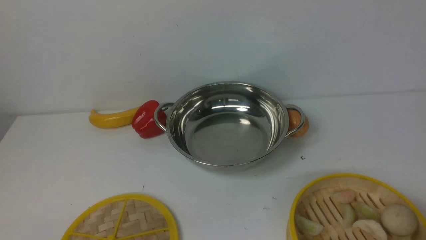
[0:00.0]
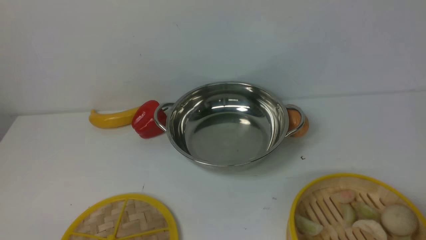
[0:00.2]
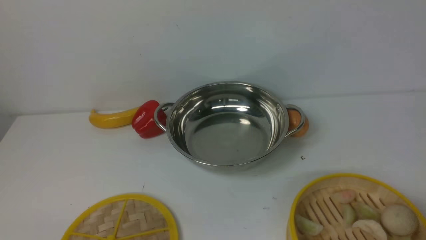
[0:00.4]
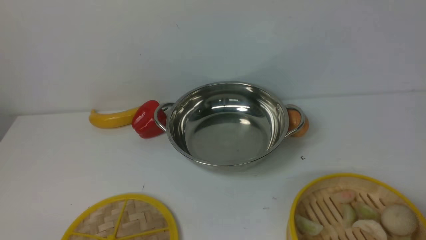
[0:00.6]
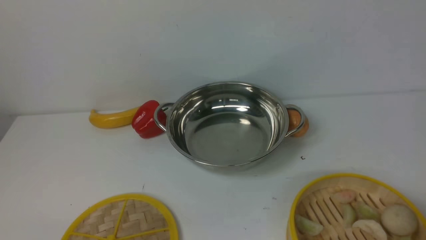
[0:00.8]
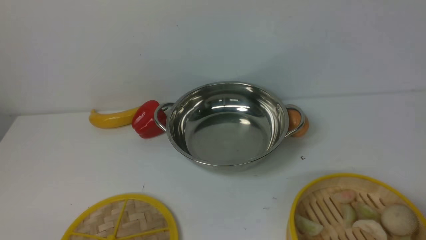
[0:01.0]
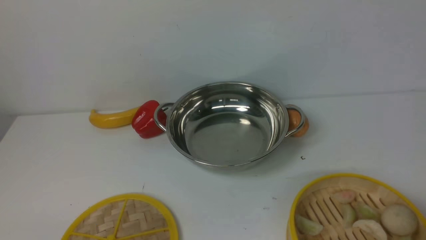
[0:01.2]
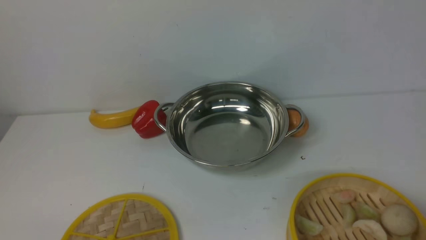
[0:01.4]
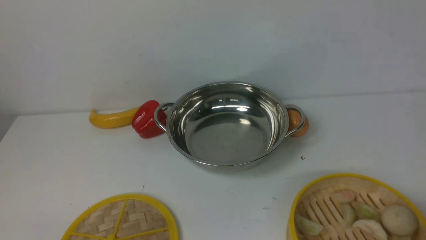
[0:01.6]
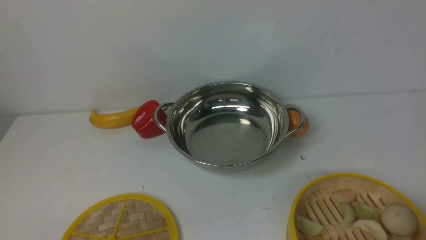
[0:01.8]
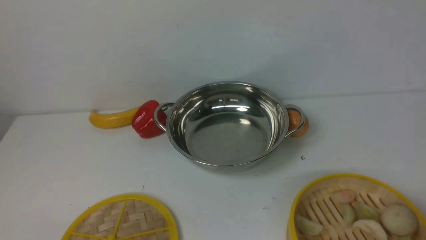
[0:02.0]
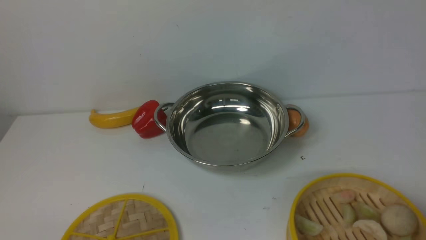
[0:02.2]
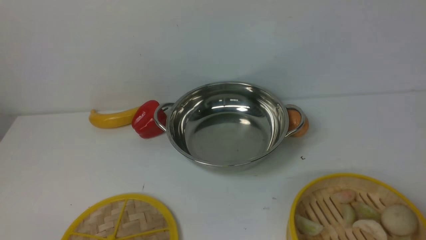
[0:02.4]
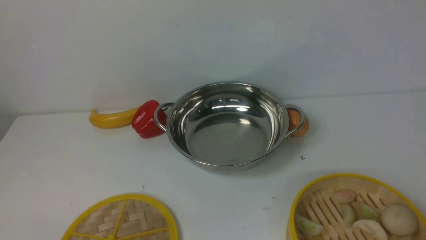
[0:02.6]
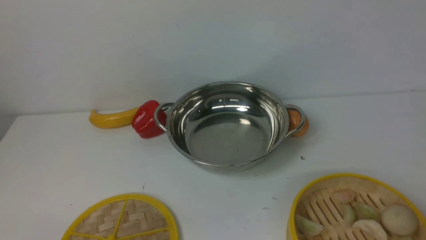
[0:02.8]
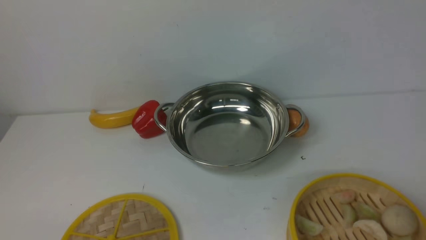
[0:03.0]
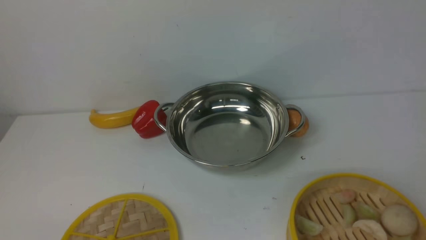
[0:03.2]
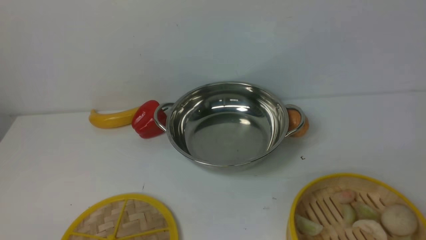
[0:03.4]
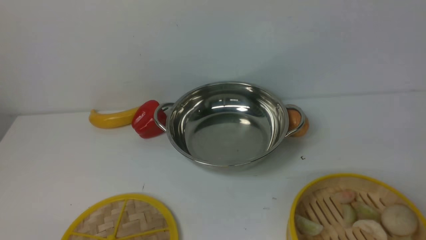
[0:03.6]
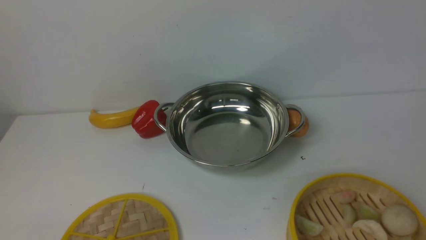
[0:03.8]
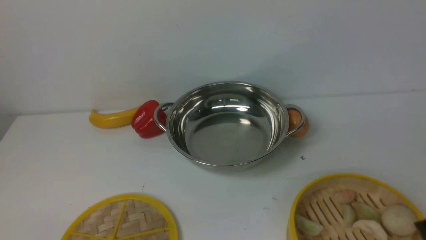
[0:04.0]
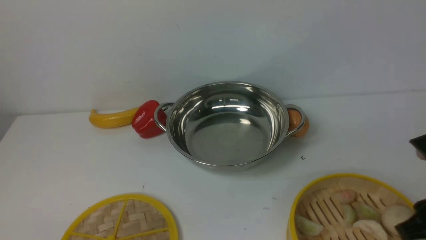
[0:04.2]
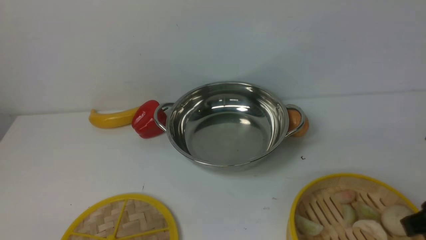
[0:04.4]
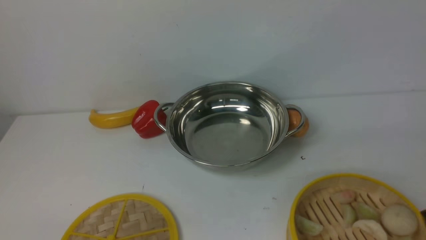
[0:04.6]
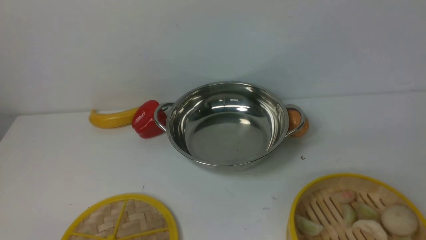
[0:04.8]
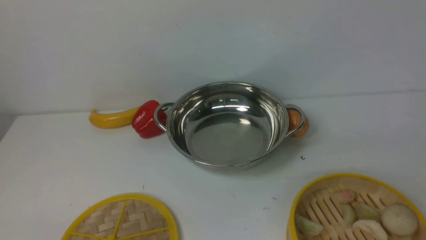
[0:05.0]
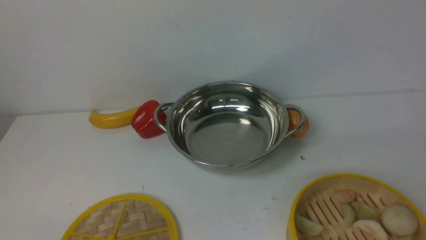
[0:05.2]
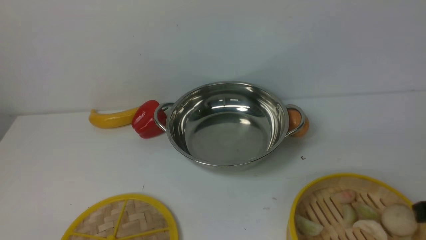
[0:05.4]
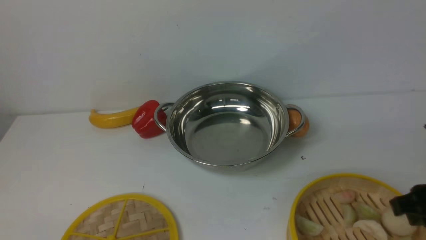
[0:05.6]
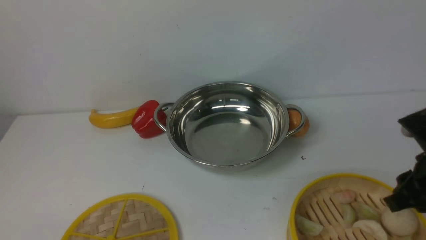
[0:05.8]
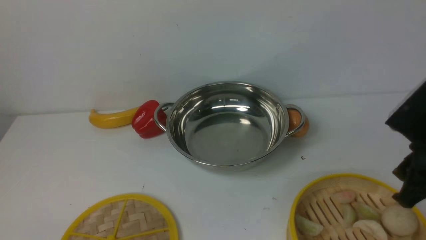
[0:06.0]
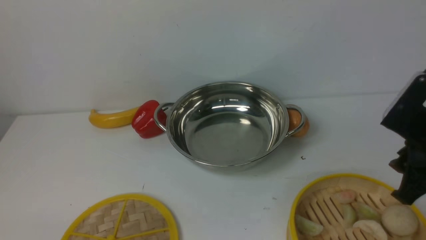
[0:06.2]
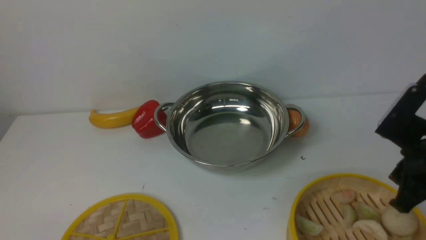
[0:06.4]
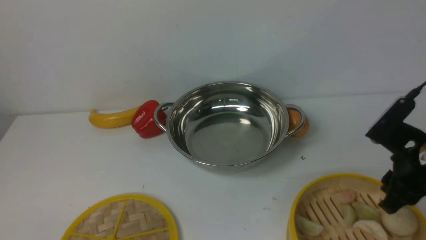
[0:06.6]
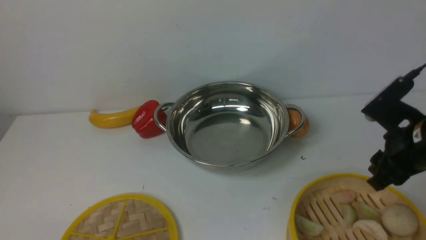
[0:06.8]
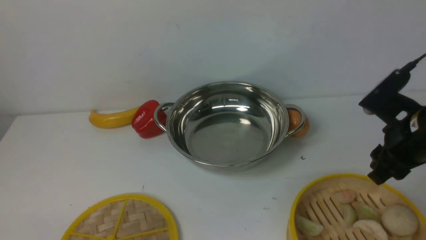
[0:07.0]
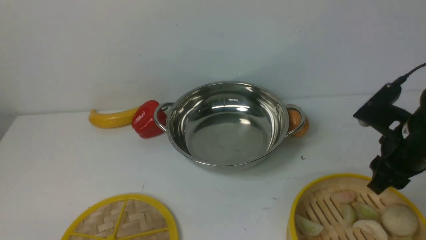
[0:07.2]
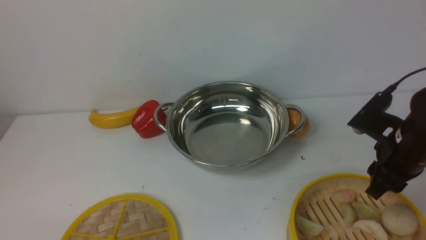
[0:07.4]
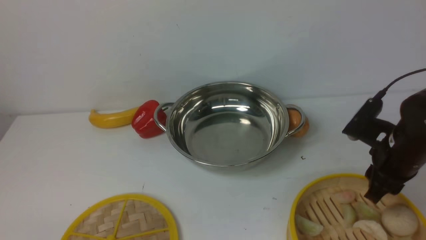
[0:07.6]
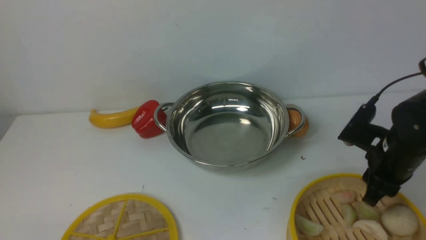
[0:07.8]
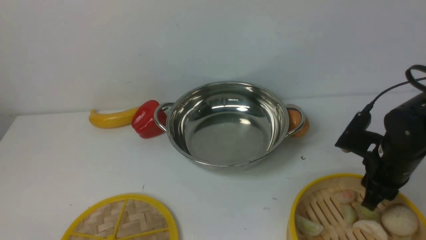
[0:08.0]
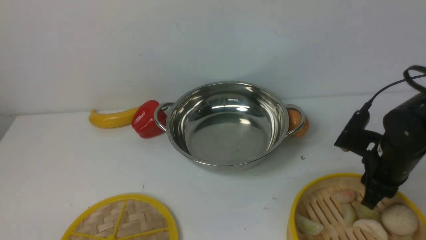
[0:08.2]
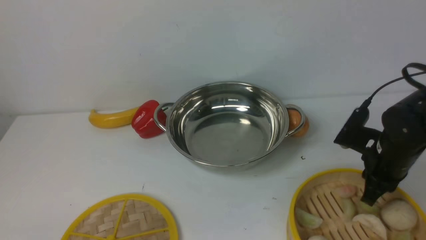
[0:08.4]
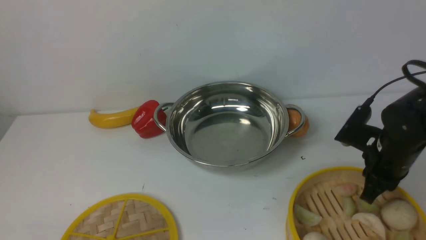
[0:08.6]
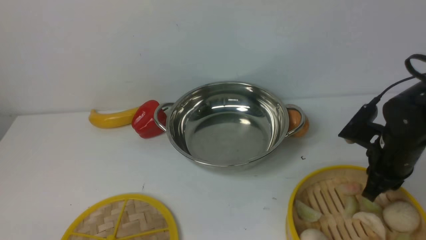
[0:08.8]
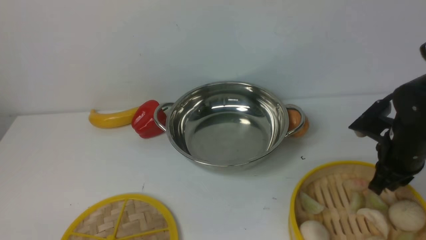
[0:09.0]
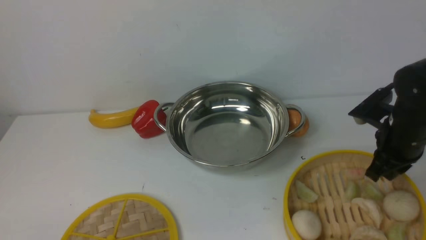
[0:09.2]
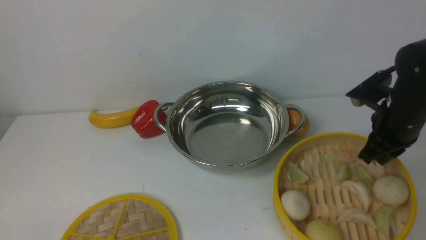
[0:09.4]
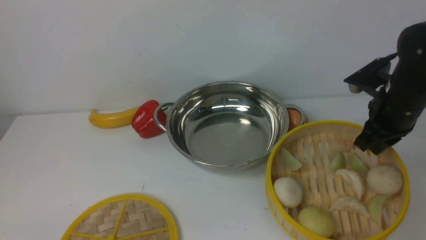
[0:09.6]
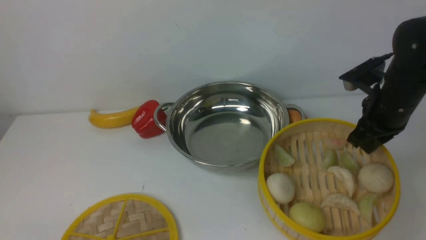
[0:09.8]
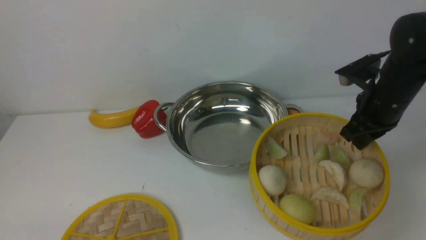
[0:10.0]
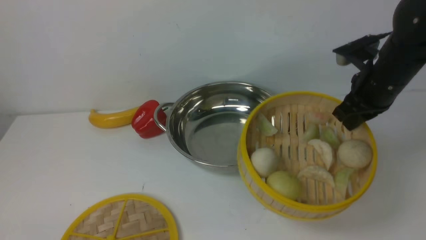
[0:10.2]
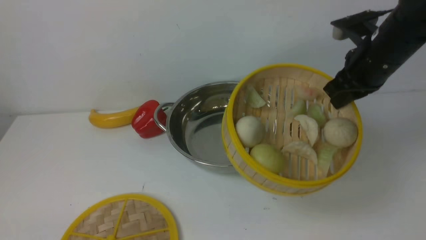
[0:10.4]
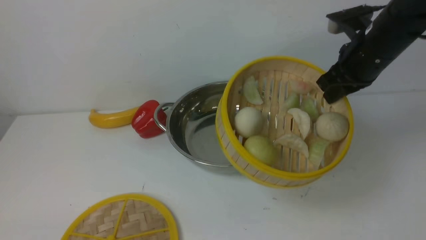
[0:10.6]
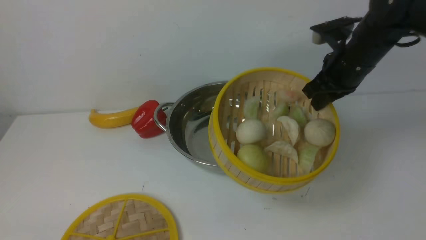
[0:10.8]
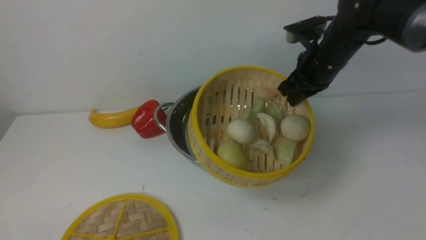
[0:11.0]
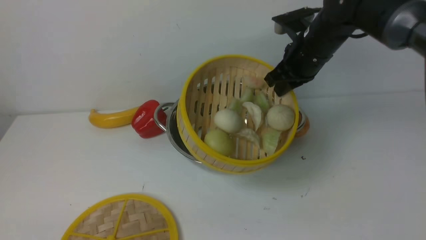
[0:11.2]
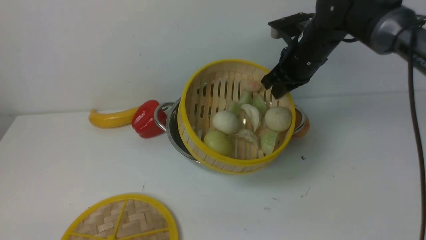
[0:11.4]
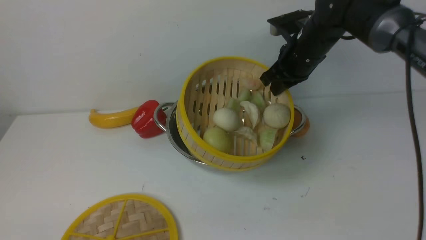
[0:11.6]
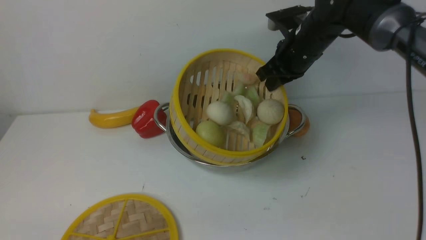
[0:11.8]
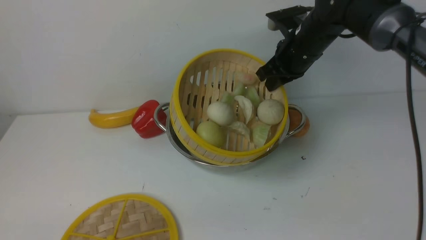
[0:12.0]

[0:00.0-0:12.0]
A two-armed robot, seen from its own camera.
Task of the whole recording: place the steamer in the pot on the white table, and put the lid on the steamer.
Step, 0:00.0 to 0:09.6: use the right arm to lift the steamer closest to it.
0:04.4 to 0:06.0: The right gripper goes about 5 cm forward.
0:06.0 to 0:07.6: The right gripper shifts some 5 cm forward.
0:07.6 to 0:09.0: The right gripper closes.
0:09.0 to 0:10.4: The right gripper shifts about 10 cm upward and forward.
0:10.4 to 0:12.0: The right gripper goes about 10 cm to the left and forward.

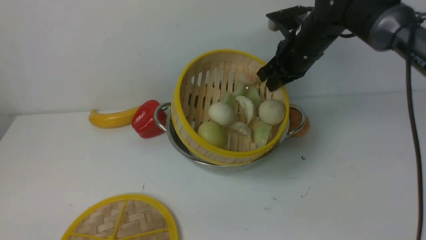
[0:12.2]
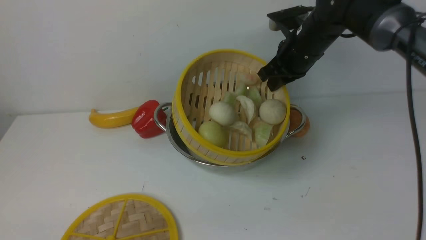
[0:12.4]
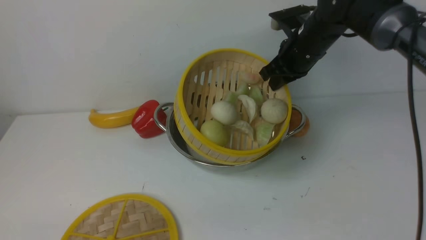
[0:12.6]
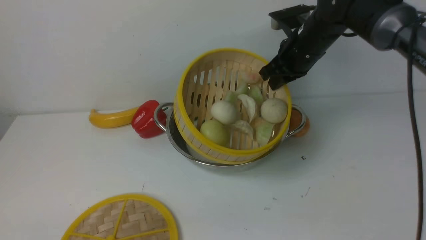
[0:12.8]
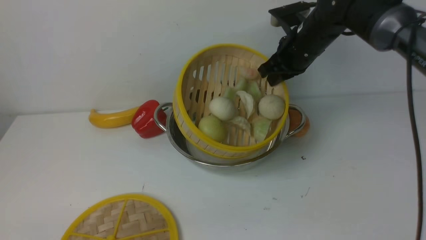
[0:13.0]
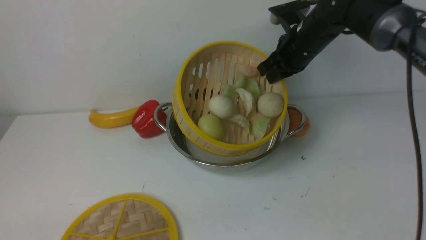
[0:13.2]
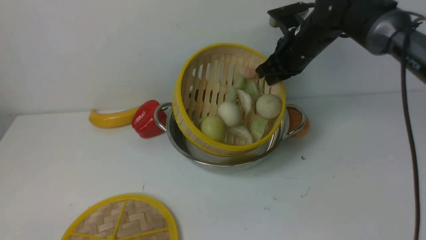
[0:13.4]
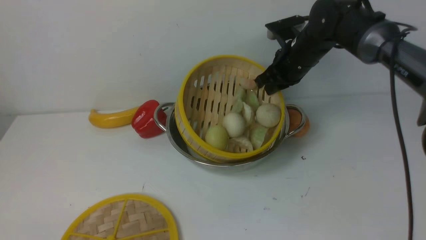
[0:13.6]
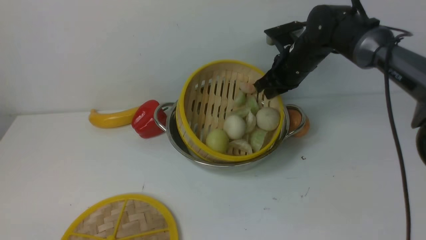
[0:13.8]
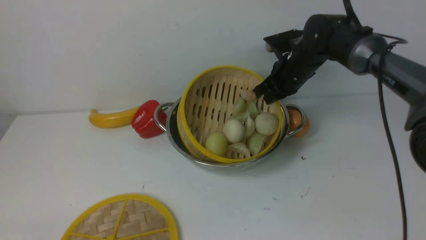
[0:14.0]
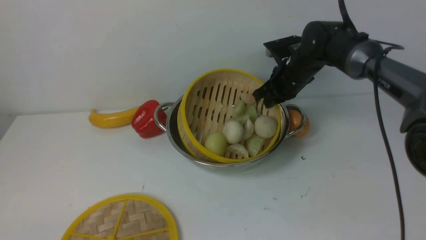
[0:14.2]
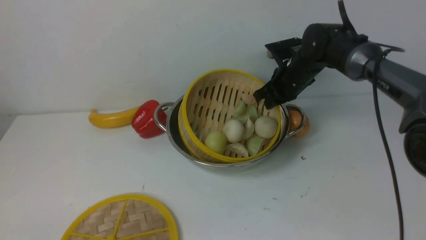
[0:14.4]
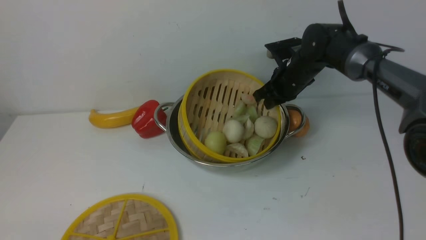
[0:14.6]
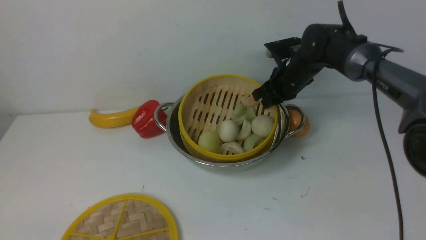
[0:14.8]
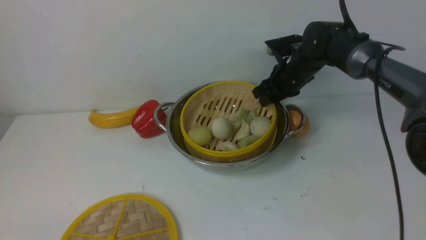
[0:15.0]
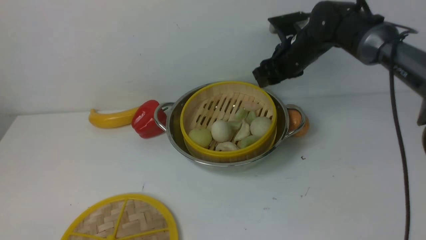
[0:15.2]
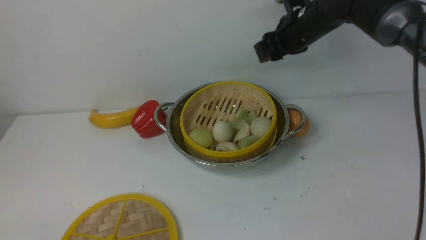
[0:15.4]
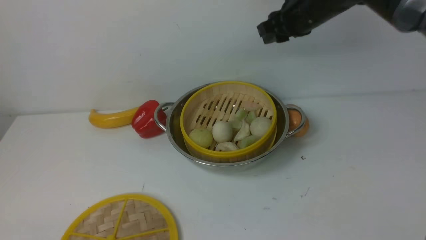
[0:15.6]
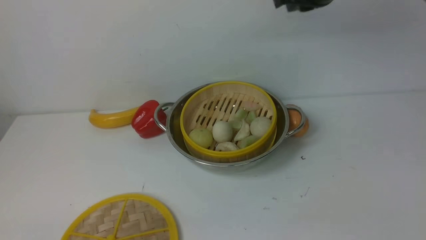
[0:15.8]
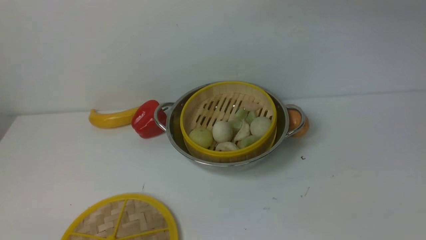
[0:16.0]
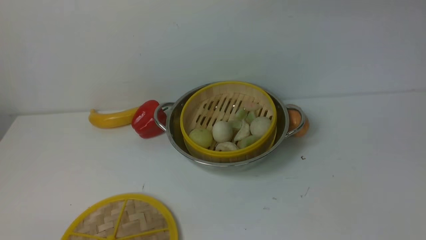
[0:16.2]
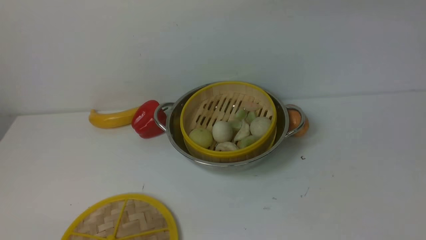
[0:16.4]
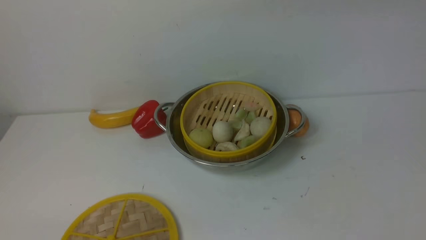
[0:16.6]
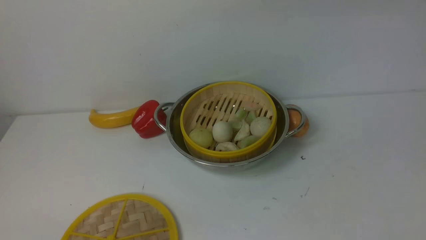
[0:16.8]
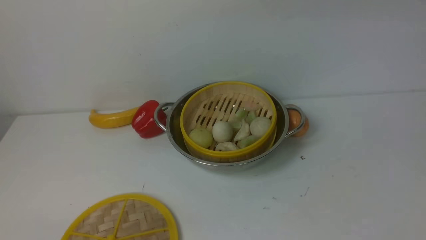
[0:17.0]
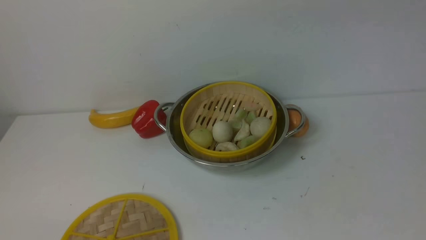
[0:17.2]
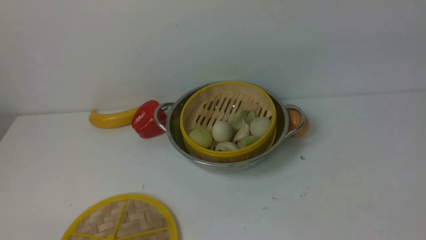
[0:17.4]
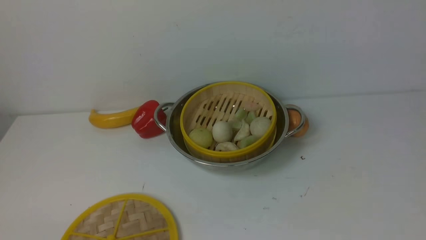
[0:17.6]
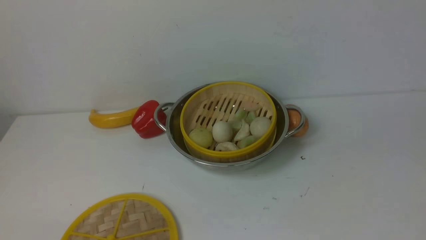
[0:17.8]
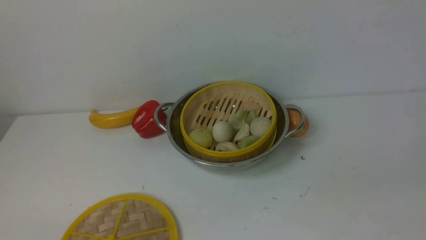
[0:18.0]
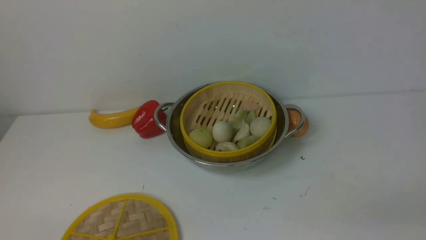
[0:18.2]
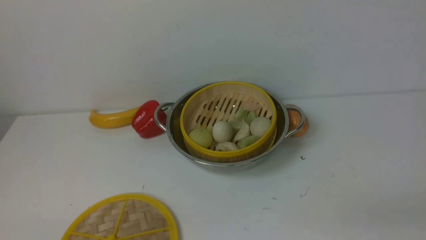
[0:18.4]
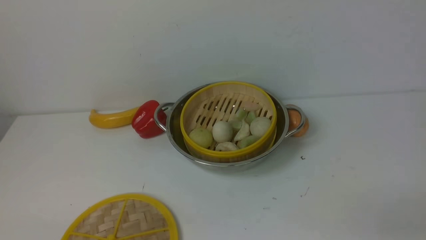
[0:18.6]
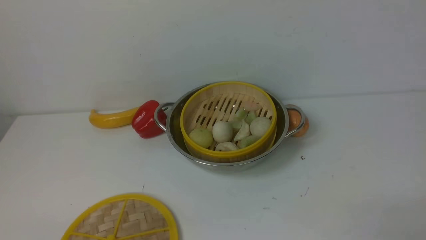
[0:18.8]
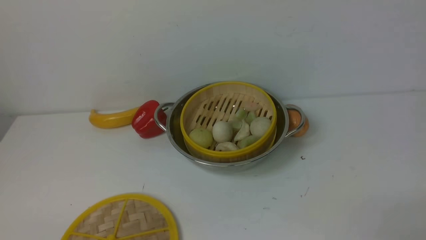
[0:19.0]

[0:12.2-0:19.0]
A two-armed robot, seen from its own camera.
Task of the whole recording: place the steamer in the pot on the white table, and put the lid on the steamer.
Step, 0:12.2 to 0:15.6: use the right arm to put the steamer into the iron steamer pot in the middle.
0:12.2 to 0:13.6: There are only small adjustments of the grippers.
0:13.6 to 0:15.0: The right gripper ends up approximately 5 cm from where it was, and opens its fingers.
0:15.0 to 0:16.2: The right gripper moves upward, about 25 cm, and closes.
